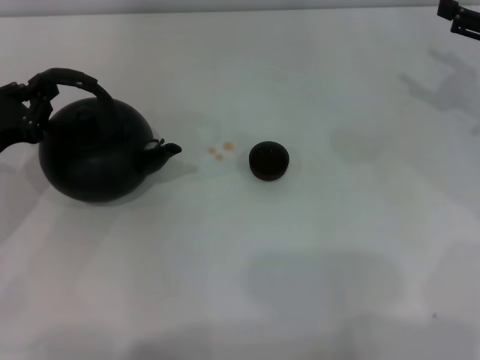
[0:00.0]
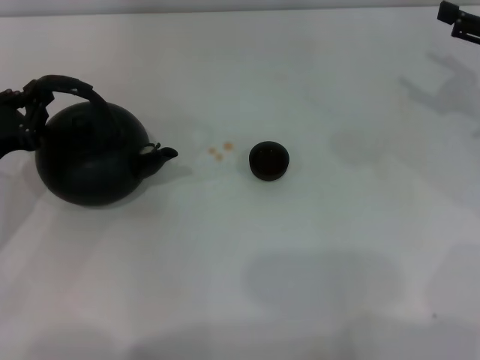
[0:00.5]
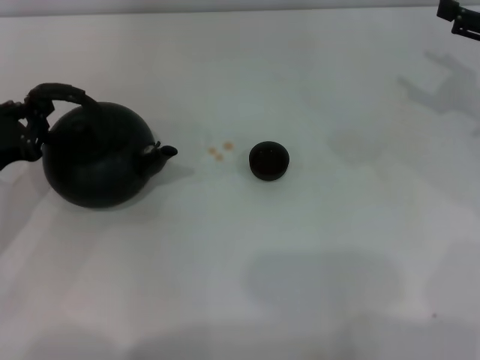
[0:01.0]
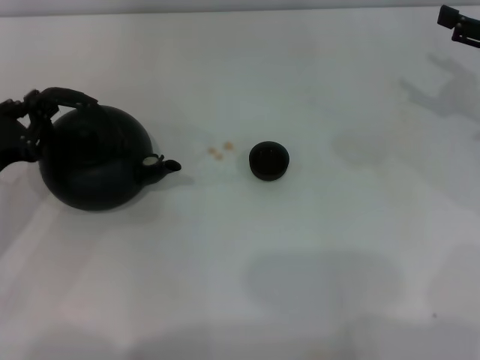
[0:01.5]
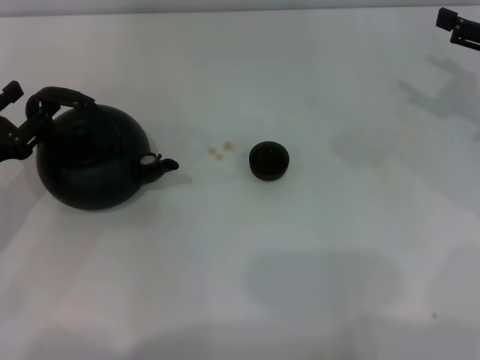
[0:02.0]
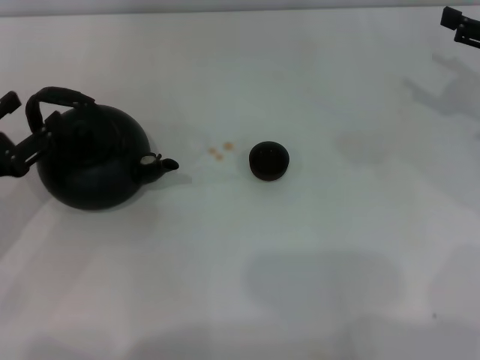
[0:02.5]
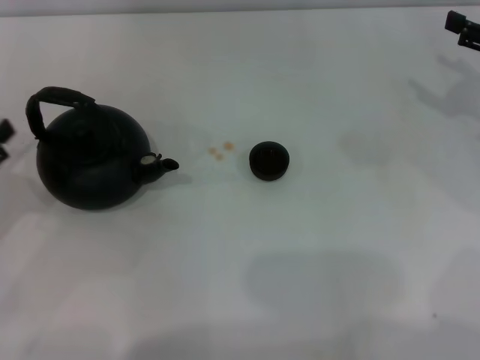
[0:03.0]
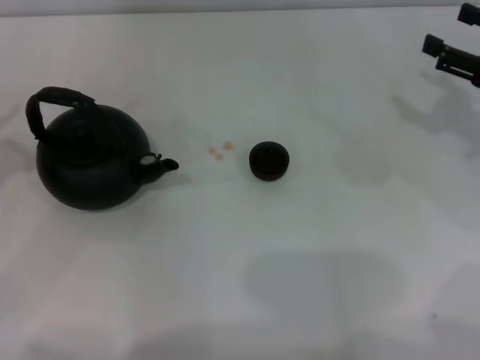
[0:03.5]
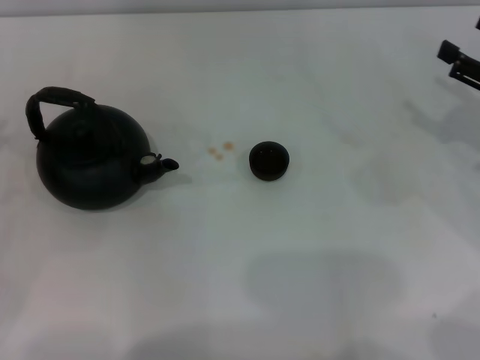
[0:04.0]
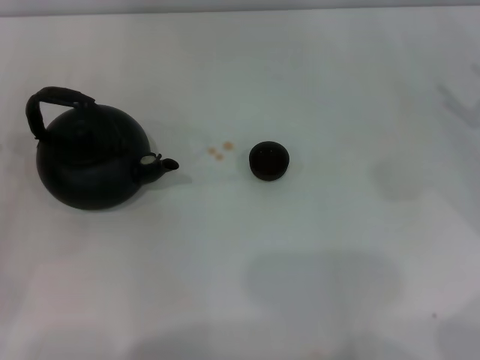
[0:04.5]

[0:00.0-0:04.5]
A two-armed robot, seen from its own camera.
Task of the whole recording: Grasp the handle of the teapot with one hand and pour tea into the teacup.
Step, 0:00.0 to 0:02.5: Put down the teapot with the left gripper.
0:00.0 to 0:02.0: The left gripper opens.
0:02.0 to 0:04.5: The left gripper travels to the left by roughly 10 cm, and opens up. The right gripper changes place by approximately 5 cm.

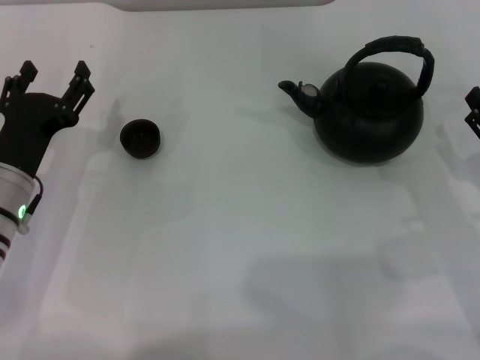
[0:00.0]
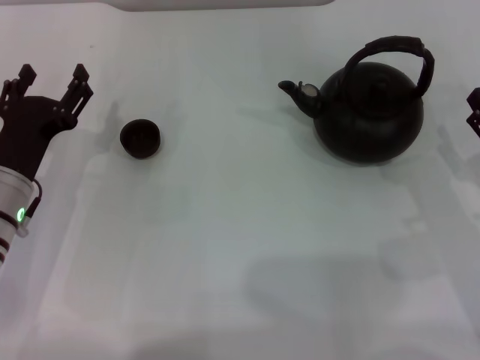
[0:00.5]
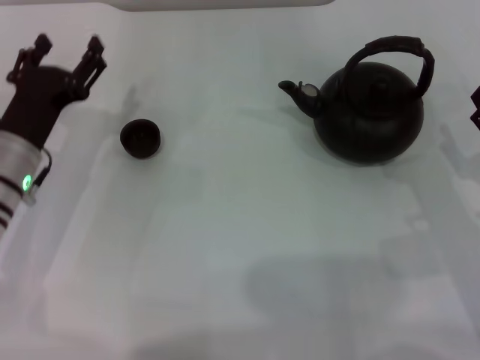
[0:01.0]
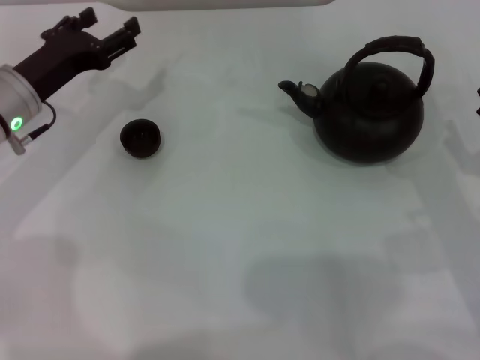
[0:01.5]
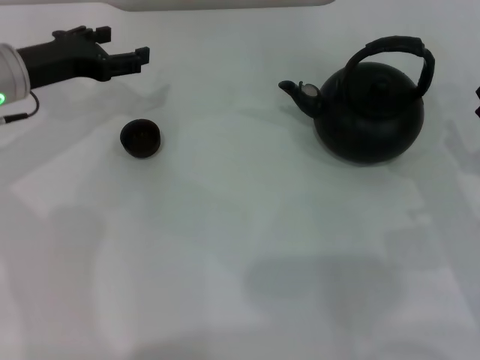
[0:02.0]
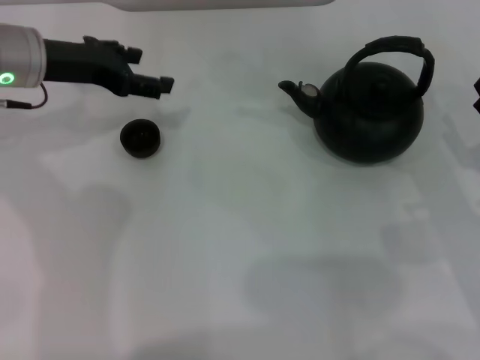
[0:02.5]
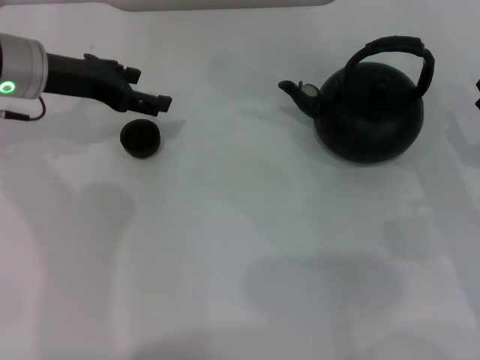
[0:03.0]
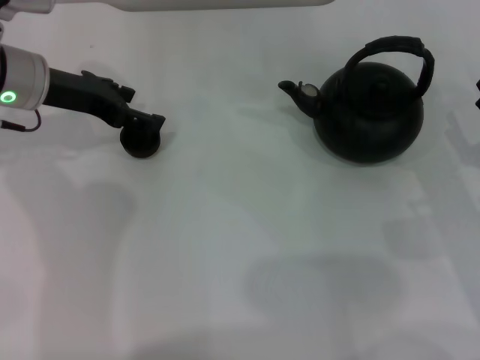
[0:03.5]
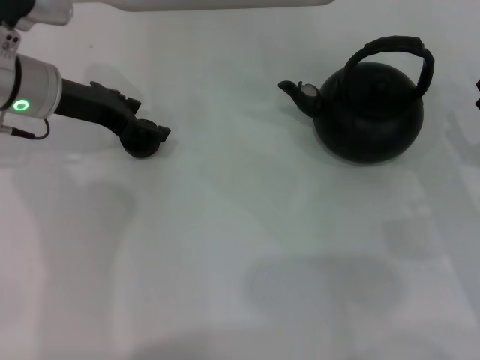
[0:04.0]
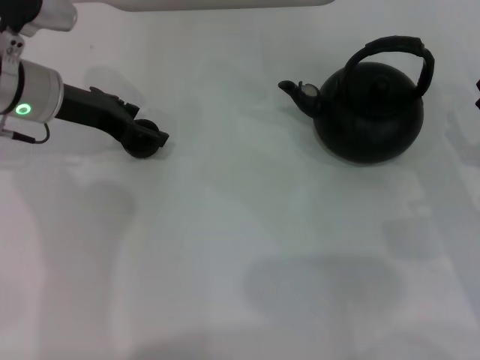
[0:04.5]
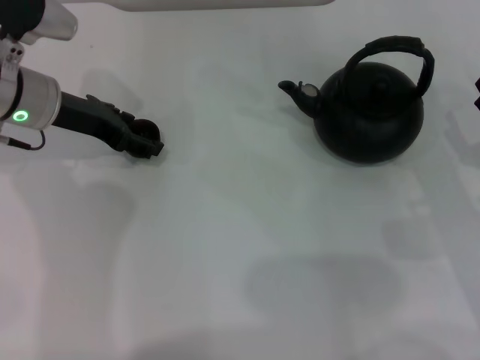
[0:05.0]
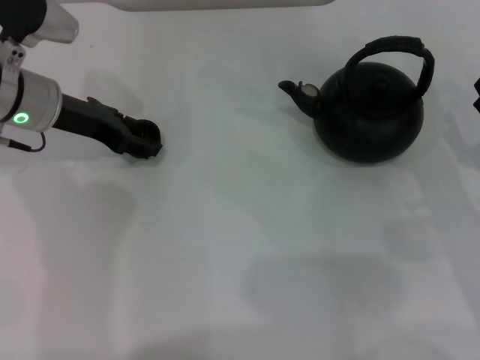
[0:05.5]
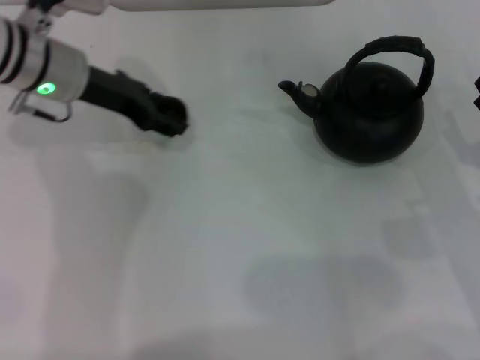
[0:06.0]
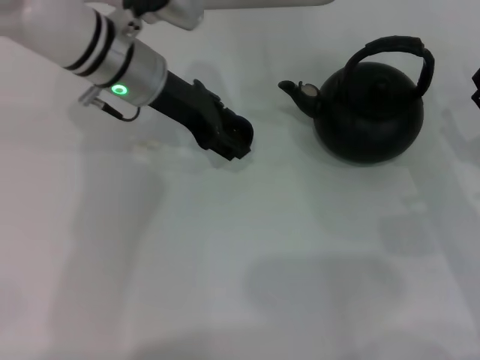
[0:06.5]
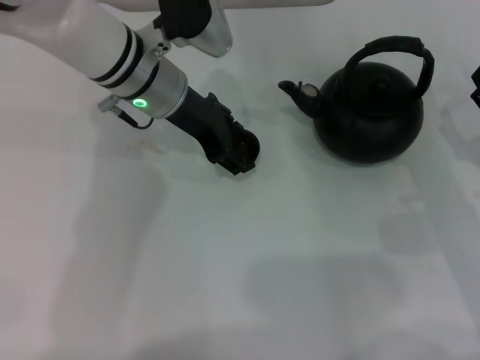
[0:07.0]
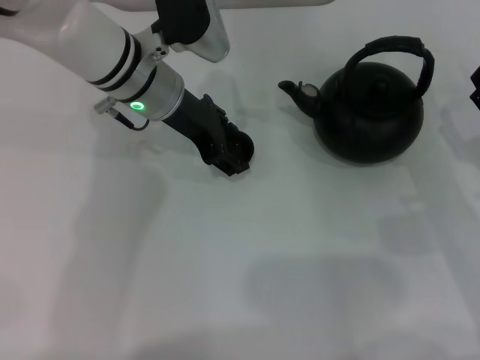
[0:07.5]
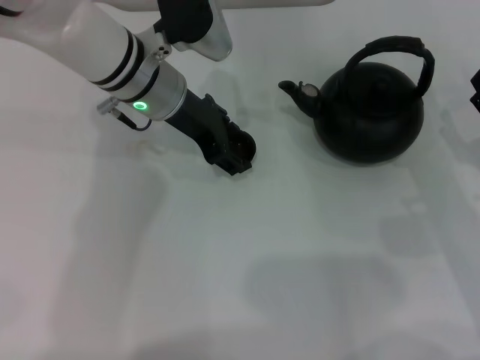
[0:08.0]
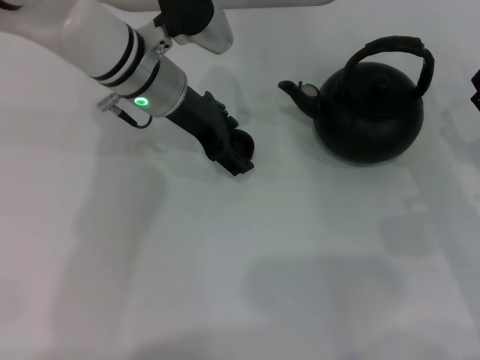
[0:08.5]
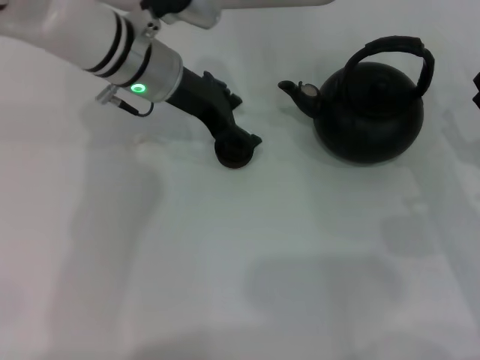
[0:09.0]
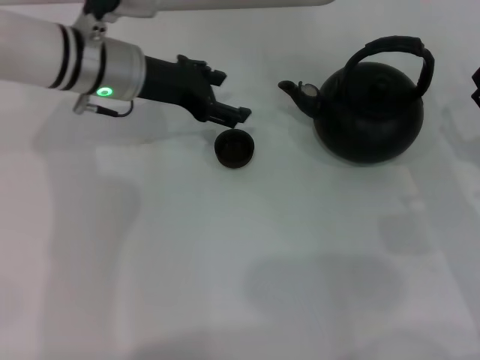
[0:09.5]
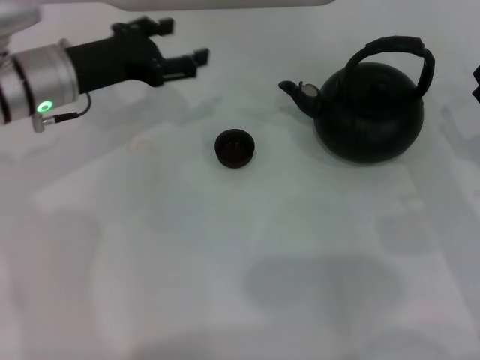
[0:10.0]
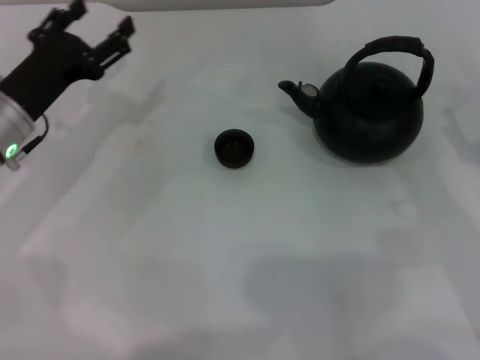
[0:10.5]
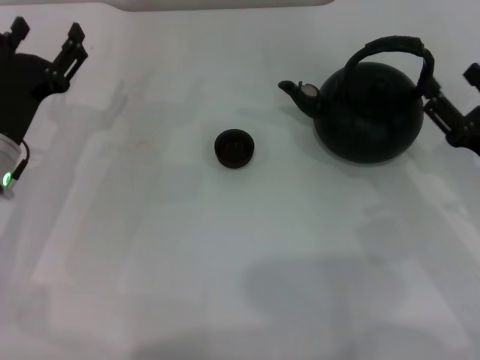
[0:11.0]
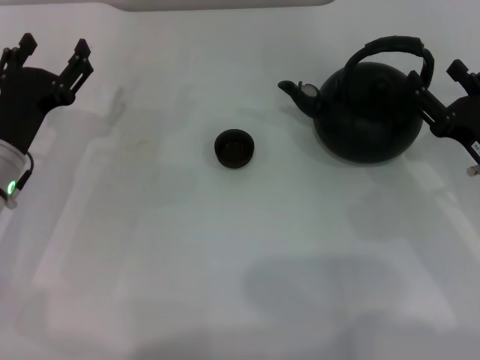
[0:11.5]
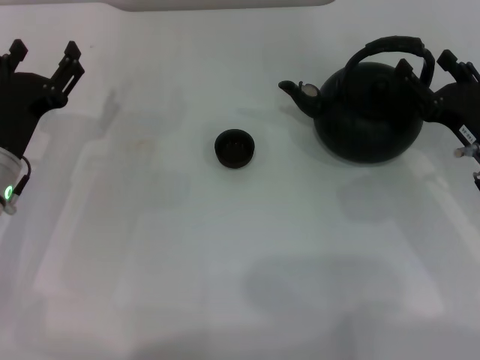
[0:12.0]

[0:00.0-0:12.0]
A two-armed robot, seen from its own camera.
Task of the whole recording: Grasp the handle of the teapot with one hand and pour tea into the teacup.
Step, 0:00.0 to 0:06.0: Pick up the teacup with the left gripper.
Step, 0:06.5 to 0:09.0: Place the teacup in the center of view with the left gripper.
0:00.0 to 0:02.0: The left gripper goes roughly 15 cm forward and upward.
0:04.0 to 0:06.0: The left gripper closes.
0:06.0 to 0:08.0: The left gripper moves to the right, approximately 10 cm.
0:08.0 to 0:10.0: The left gripper travels to the left by approximately 10 cm, and opens.
0:10.0 to 0:12.0: The right gripper moves about 5 cm, while the left gripper is displaced backward and downward by approximately 10 cm.

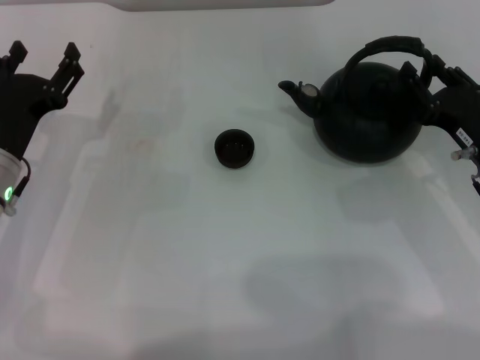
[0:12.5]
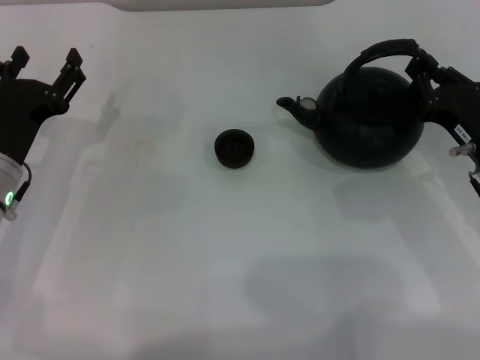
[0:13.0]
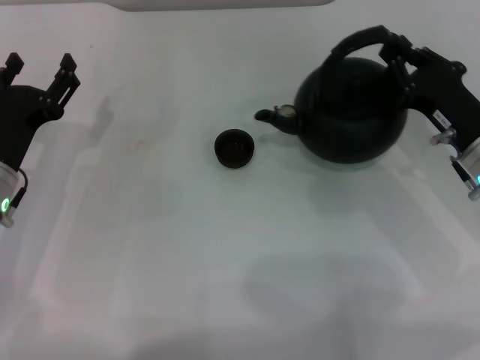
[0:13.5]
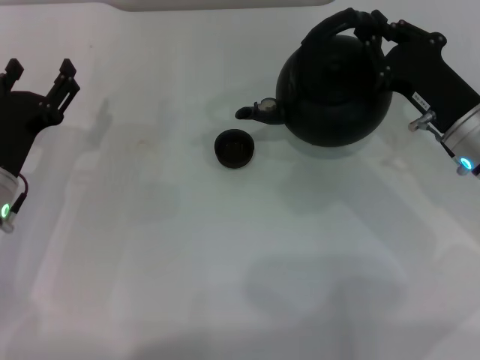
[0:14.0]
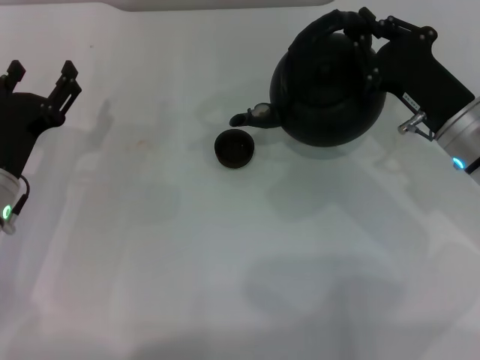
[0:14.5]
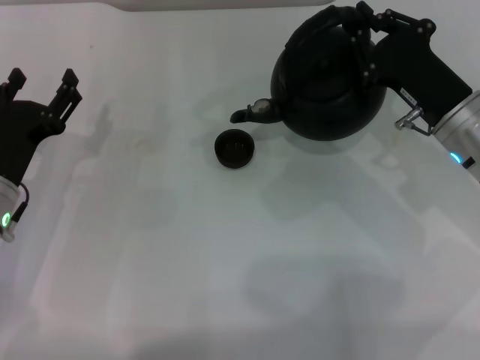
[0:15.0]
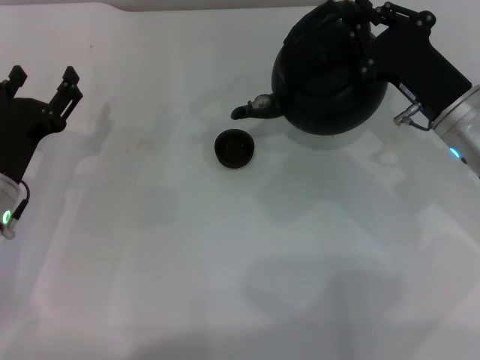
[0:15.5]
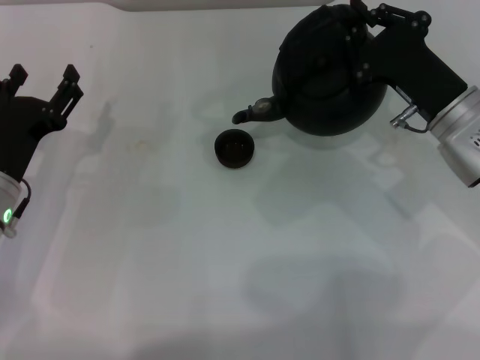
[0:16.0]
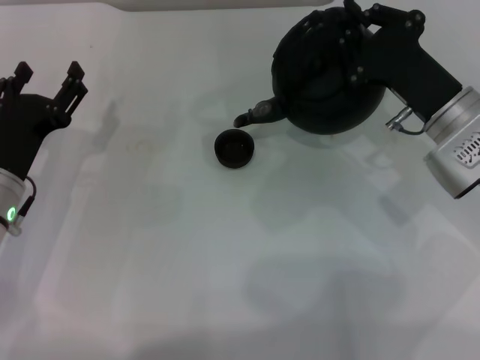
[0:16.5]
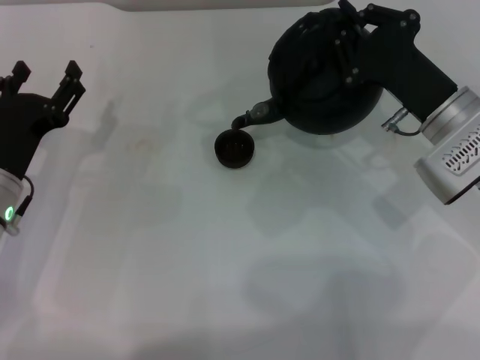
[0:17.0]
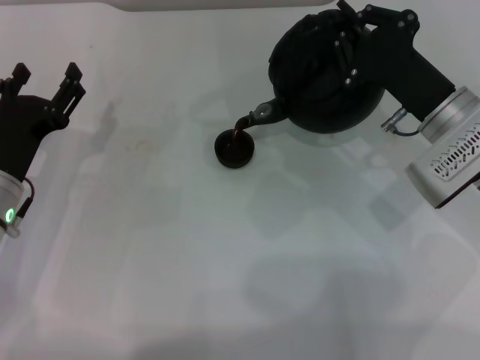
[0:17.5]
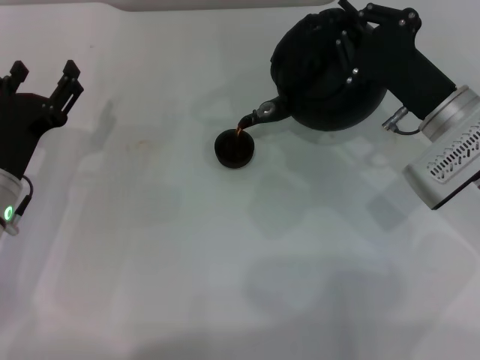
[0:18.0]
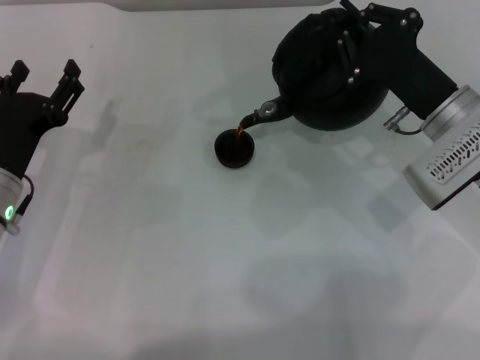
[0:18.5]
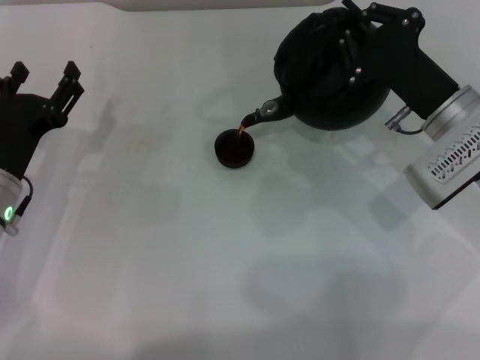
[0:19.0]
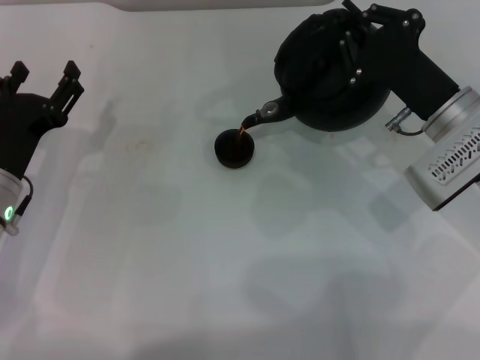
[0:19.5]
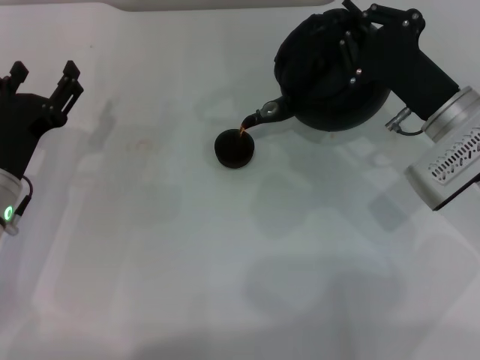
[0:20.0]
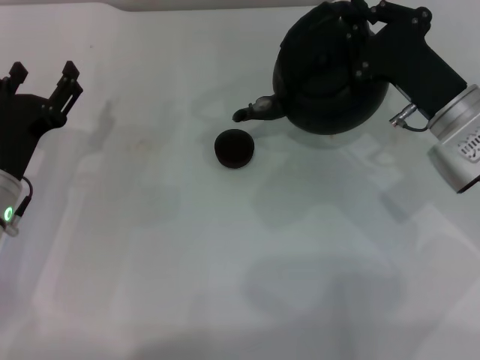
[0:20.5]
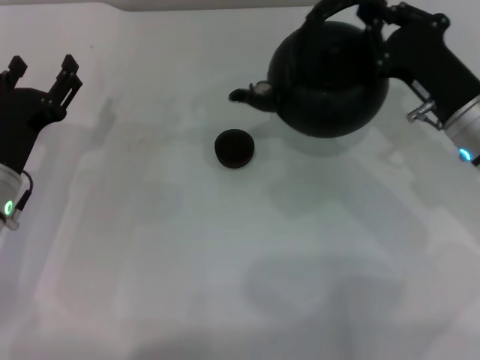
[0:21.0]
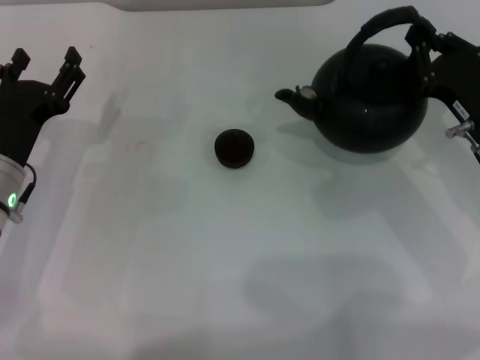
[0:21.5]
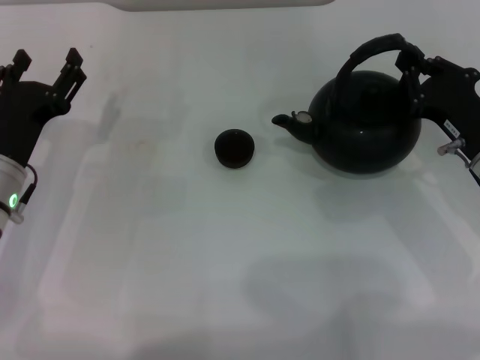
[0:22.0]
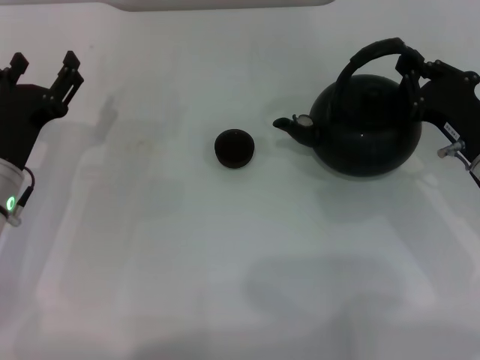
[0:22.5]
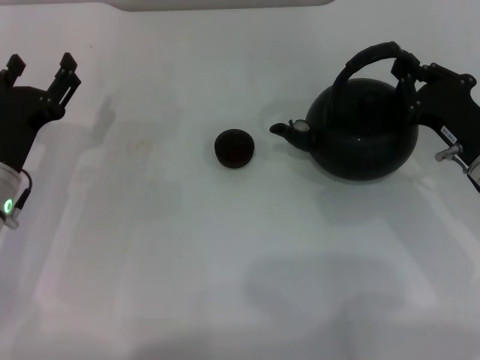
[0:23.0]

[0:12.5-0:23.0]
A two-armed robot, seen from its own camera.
Task of the whole recording: Grasp the handle of the teapot with one hand and pour tea into the teacup.
Step, 0:14.0 to 0:20.5: Pour tea into the teacup with the right gripper.
0:12.5 to 0:14.5: The right gripper changes place by approximately 5 cm, and closes.
0:16.5 to 0:19.0: There are only small adjustments of the grippers.
0:21.0 to 0:23.0: The right gripper ends up roughly 5 cm from where it was.
